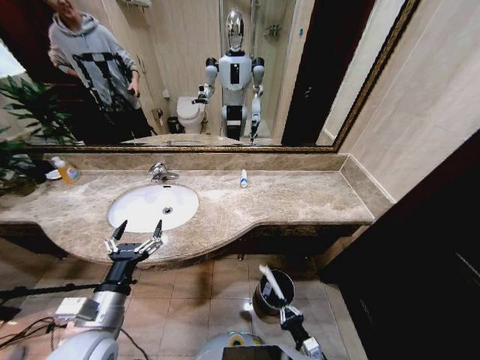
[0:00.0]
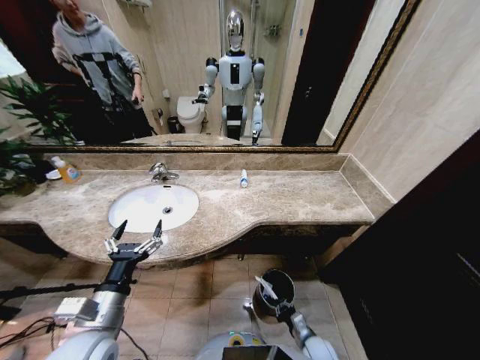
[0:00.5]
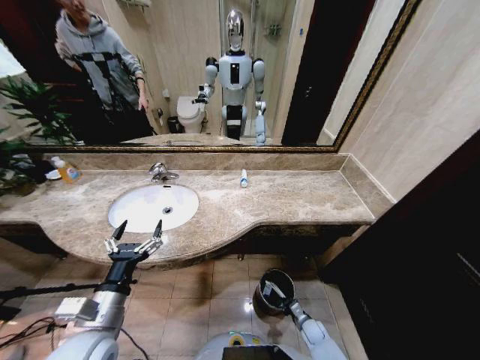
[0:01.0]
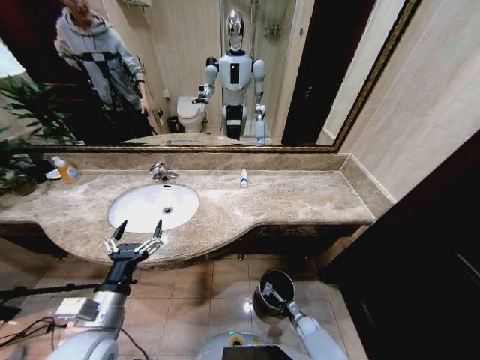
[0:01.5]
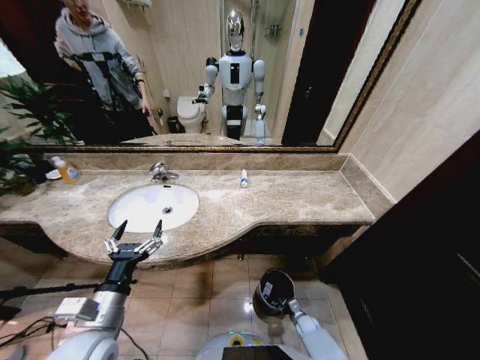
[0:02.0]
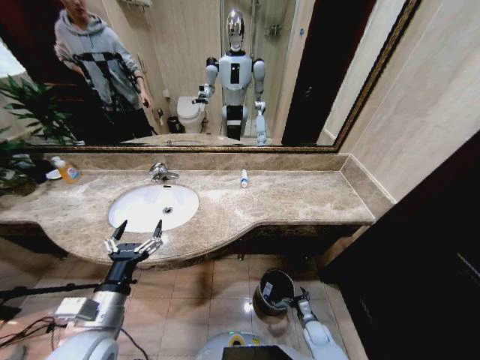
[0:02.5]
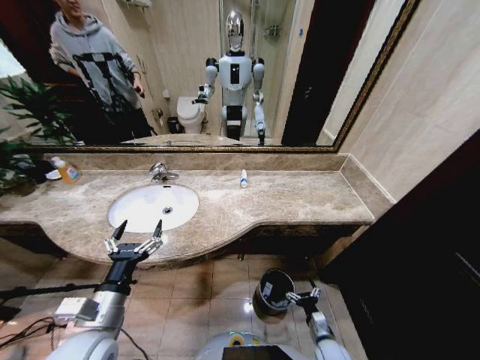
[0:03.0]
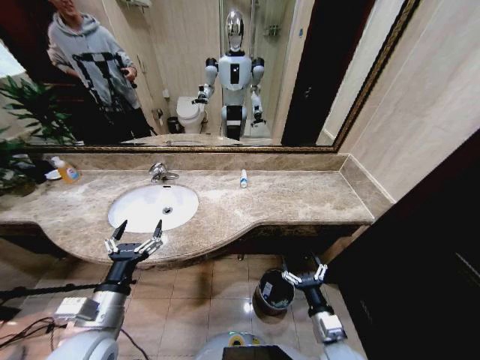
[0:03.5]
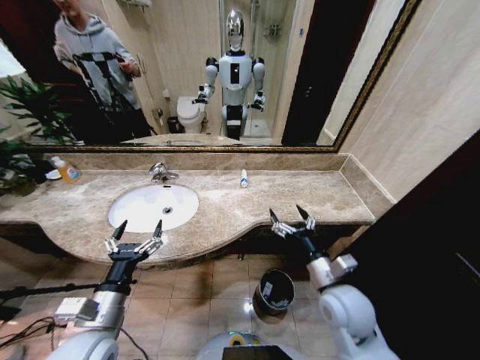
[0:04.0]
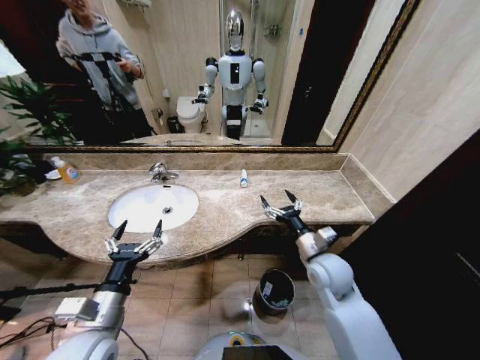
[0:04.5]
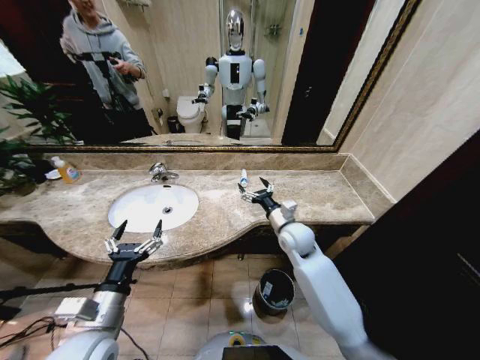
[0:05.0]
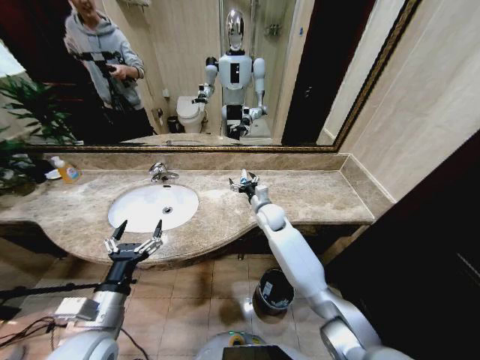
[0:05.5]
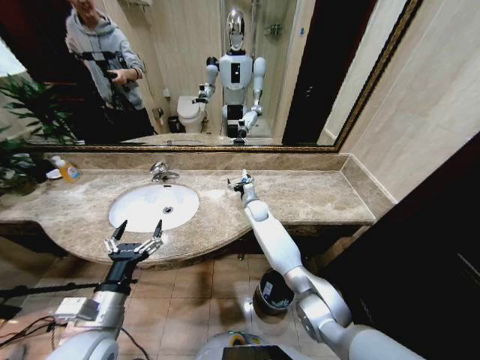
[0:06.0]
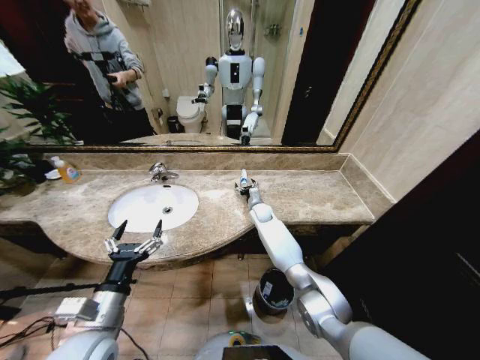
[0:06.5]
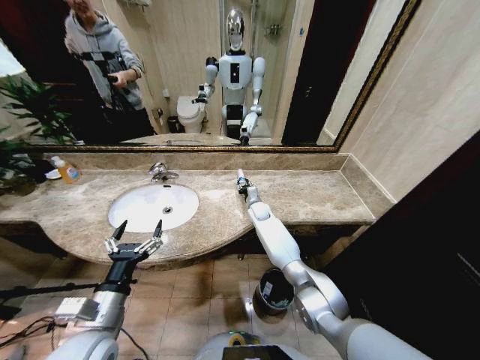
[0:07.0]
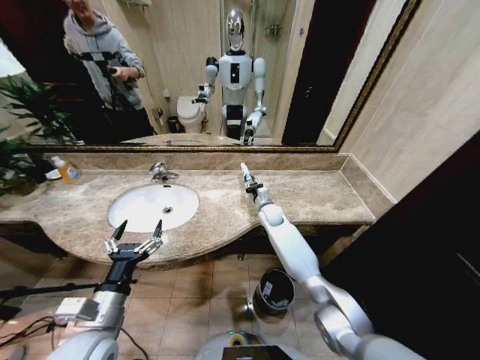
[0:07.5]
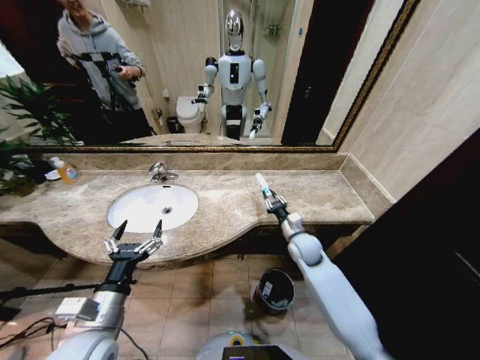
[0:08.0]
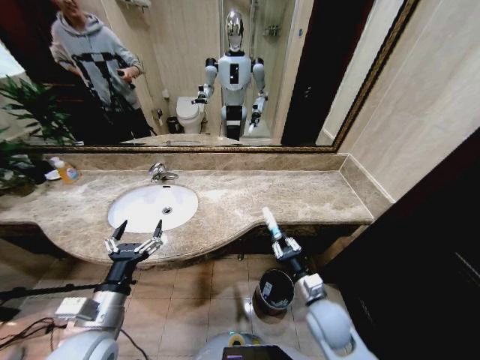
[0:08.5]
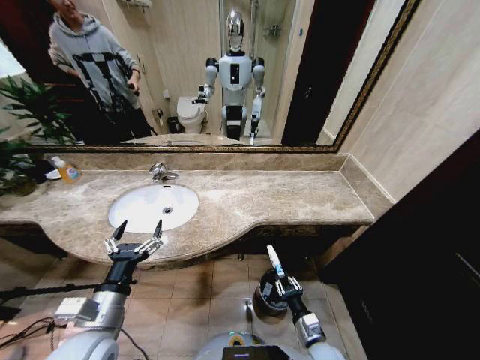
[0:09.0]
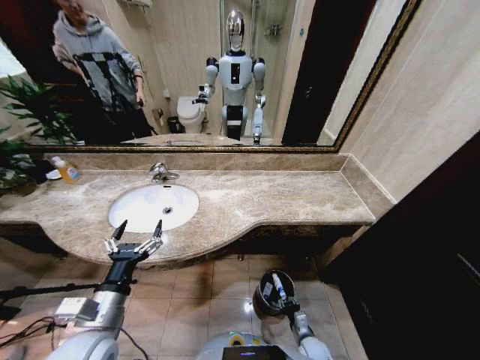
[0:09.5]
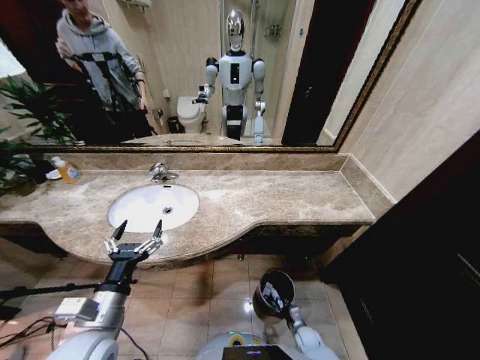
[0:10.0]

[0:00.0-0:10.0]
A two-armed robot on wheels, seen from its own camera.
Task of the whole recording: Pick up the trash from the sink and place it in the trash bin.
0:00.0 to 0:02.0: The right gripper moves downward and forward, some 25 cm, and opens up.
0:02.0 to 0:04.0: The right gripper moves upward, roughly 40 cm, and opens up.
0:04.0 to 0:06.0: The right gripper travels forward and to the left by about 35 cm.
0:06.0 to 0:08.0: The right gripper heads backward and to the right, covering about 20 cm, and closes.
0:08.0 to 0:10.0: The right gripper moves downward and backward, some 40 cm.

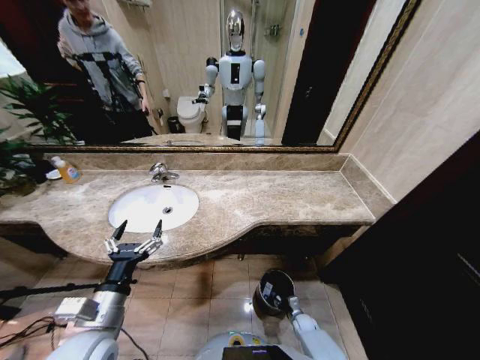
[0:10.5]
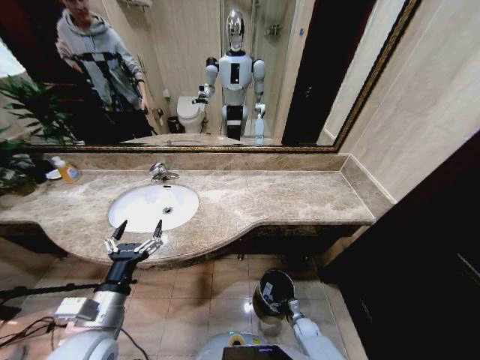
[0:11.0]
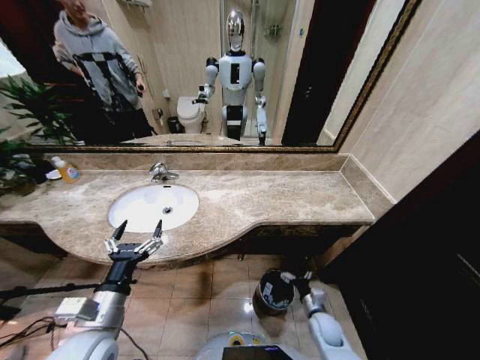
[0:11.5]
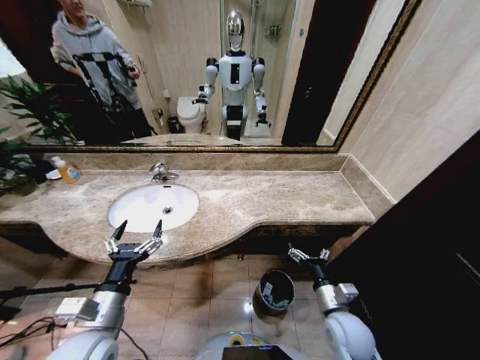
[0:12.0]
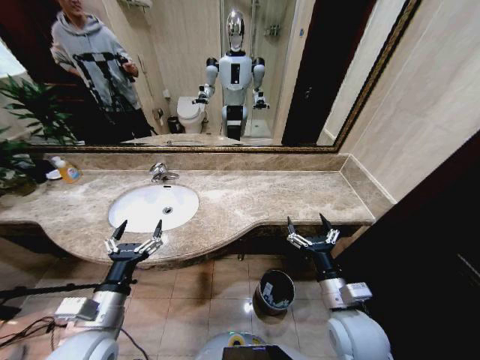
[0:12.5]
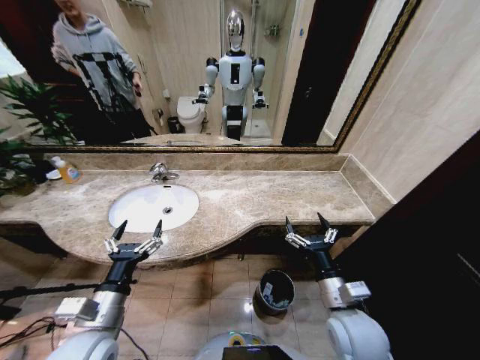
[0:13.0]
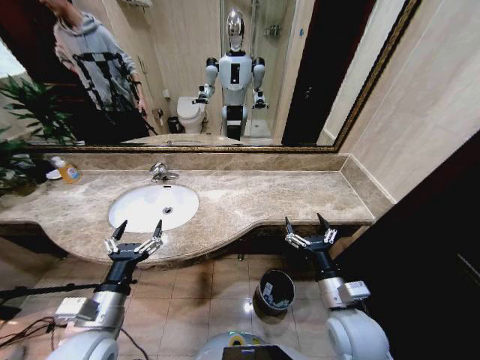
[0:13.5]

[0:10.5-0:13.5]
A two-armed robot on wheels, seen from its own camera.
Task of the whole recording: Pick up the trash from the sink and place it in the trash bin.
0:10.5 to 0:12.0: The right gripper shifts about 35 cm upward, and opens its fingers.
0:12.0 to 0:13.5: The right gripper moves upward, roughly 10 cm.
